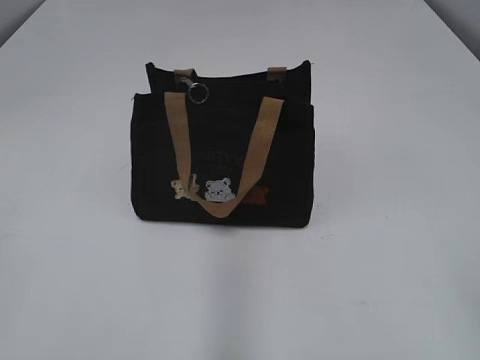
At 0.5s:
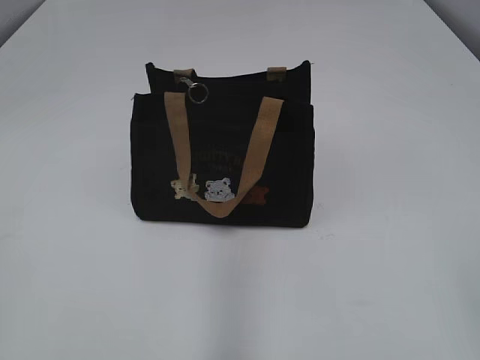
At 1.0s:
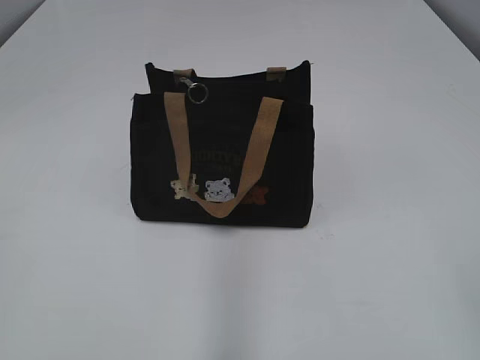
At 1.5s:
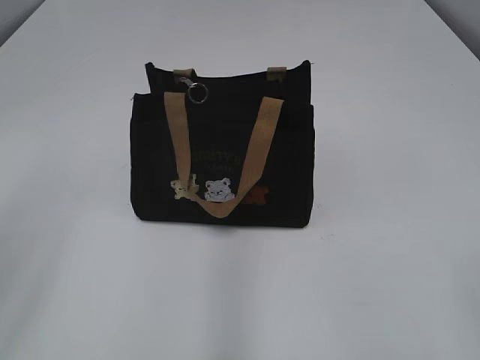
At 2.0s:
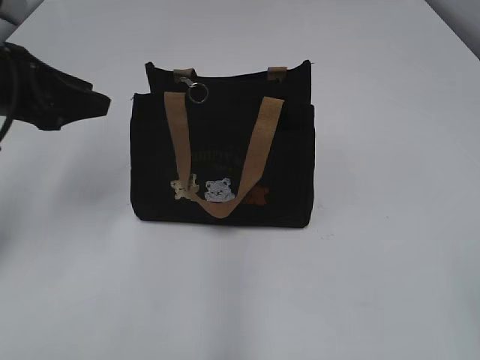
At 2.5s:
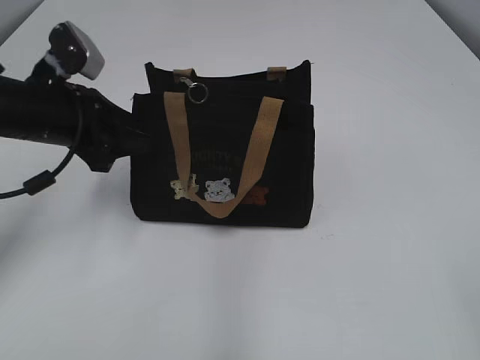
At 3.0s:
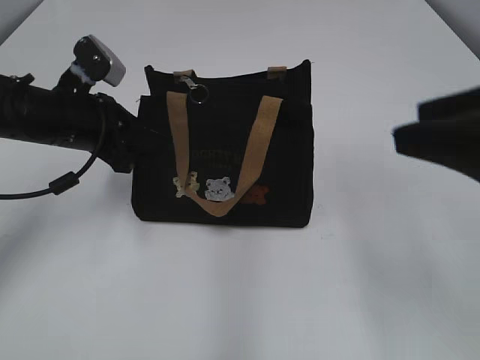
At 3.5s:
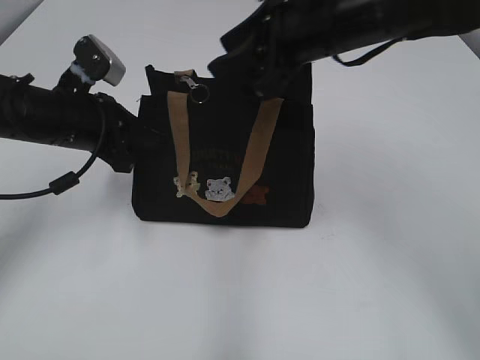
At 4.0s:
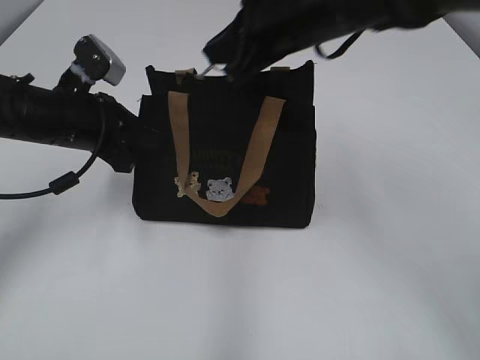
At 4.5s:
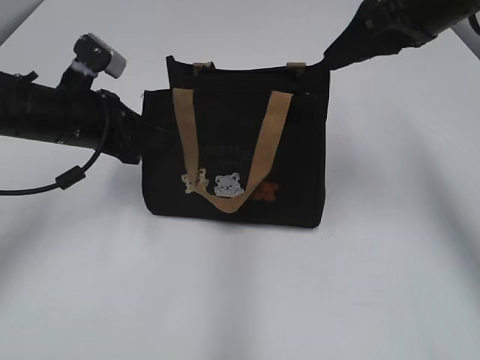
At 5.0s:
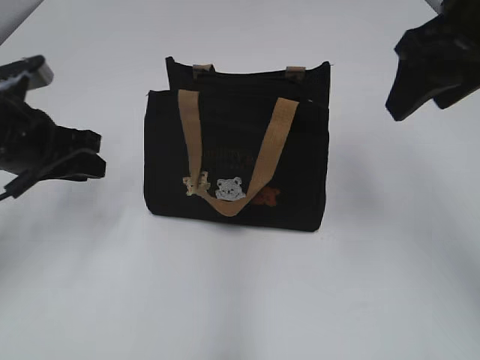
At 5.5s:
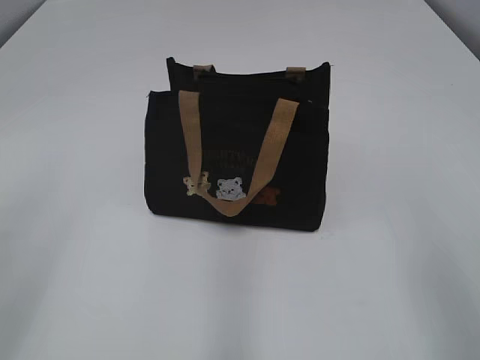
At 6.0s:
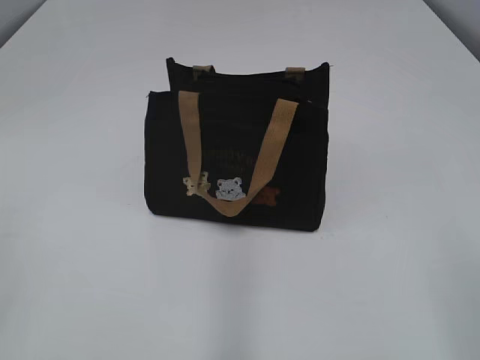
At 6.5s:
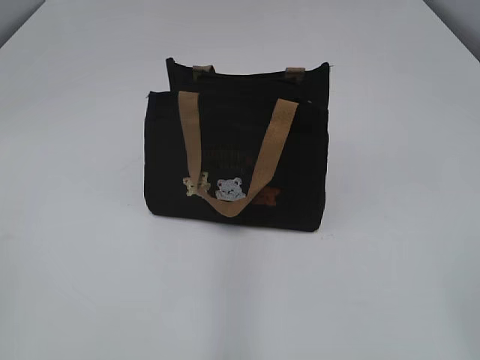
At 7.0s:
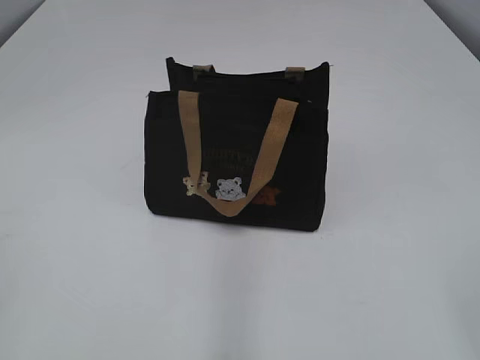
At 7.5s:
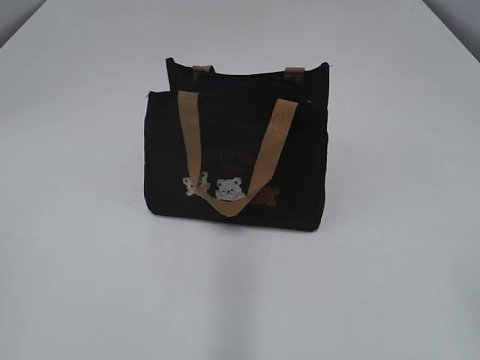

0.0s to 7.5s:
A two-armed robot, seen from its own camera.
Step, 0.0s to 4.0s: Pull open the zipper with your right hand.
2.0s to 4.0s: The left gripper heads downward and to the right, covering about 10 cm, and closes. The right gripper heads forward and to the left, covering some 40 cm, and closes its fingers.
4.0s to 5.5s: The right gripper travels backward and to the right by about 30 cm, and opens its fingers. The left gripper moves backward and upward, approximately 25 cm, and opens its fingers.
5.5s to 7.5s: Both grippers travel together backward, approximately 15 cm.
